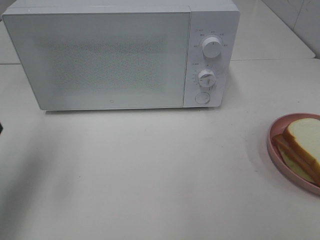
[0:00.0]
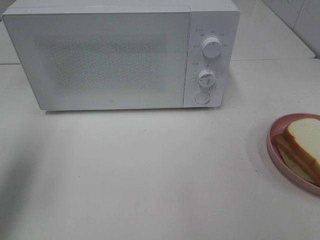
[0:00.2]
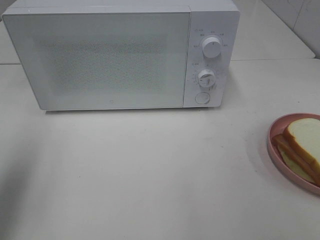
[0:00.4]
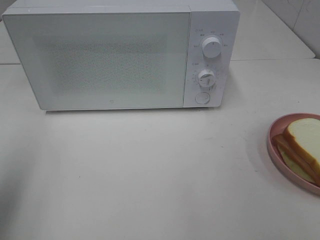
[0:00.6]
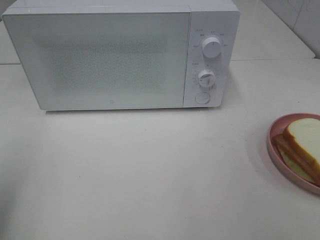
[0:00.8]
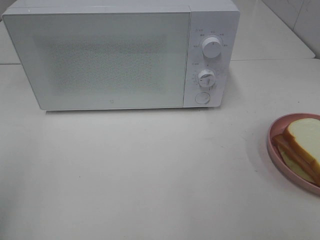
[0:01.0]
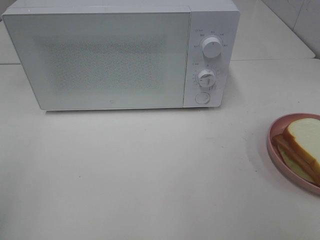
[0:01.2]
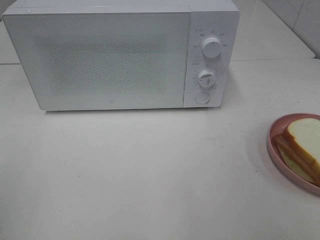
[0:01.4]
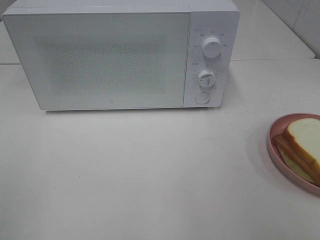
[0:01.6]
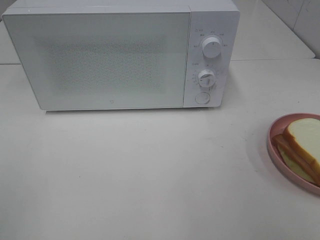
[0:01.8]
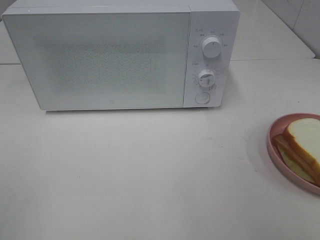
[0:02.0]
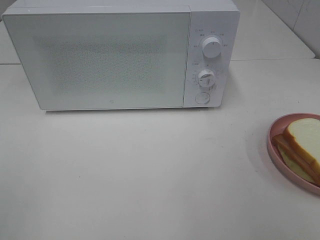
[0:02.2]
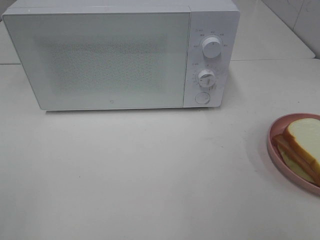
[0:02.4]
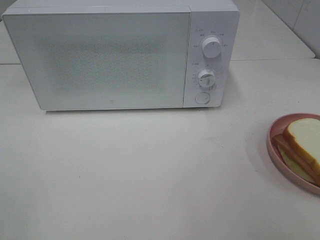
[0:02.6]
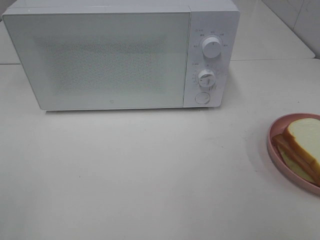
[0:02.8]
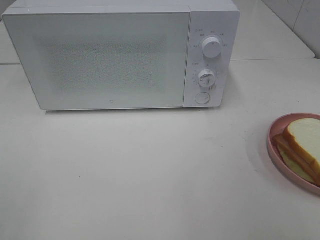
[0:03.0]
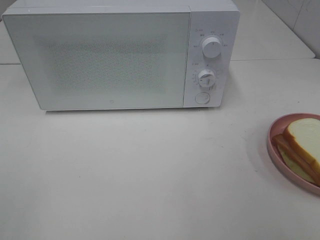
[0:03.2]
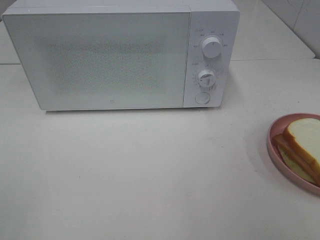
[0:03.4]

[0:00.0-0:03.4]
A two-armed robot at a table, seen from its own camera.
Task of the whole recording: Heat Sandwich.
0:00.0 to 0:01.6: The left gripper heads backward, covering roughly 20 cm.
